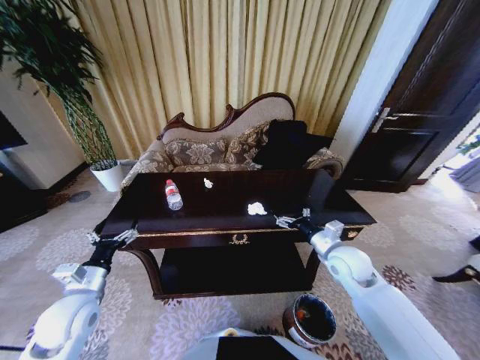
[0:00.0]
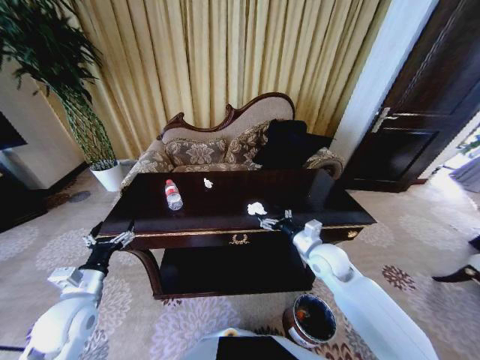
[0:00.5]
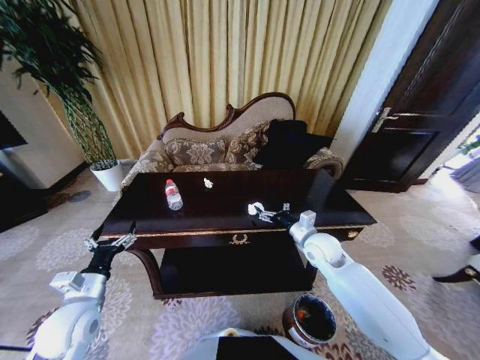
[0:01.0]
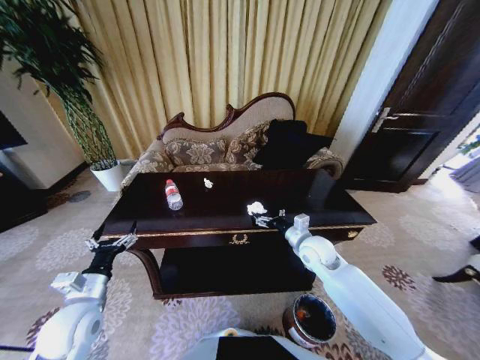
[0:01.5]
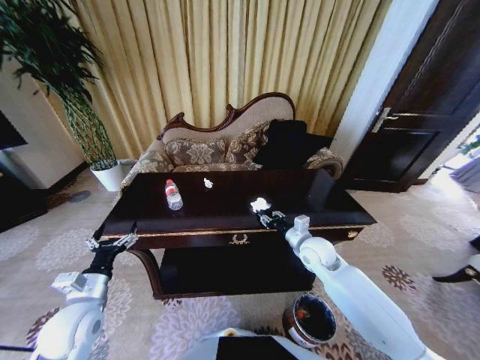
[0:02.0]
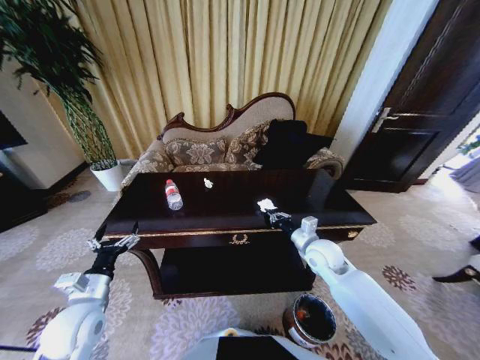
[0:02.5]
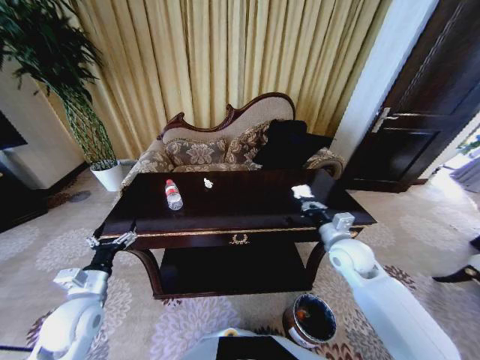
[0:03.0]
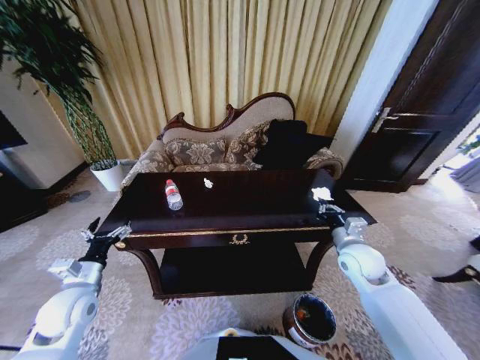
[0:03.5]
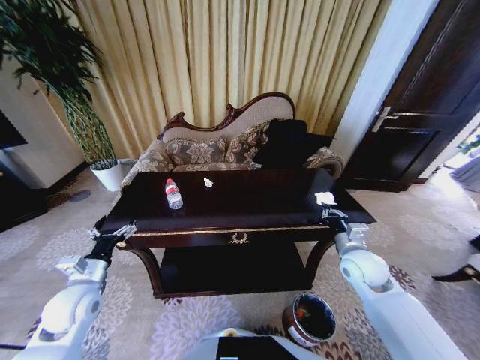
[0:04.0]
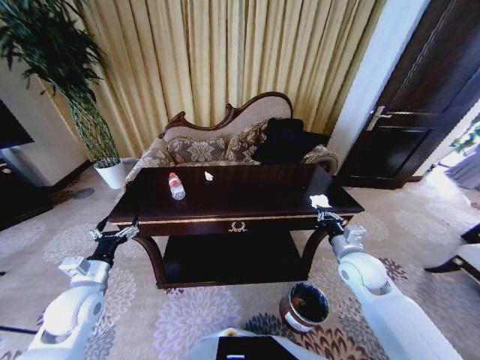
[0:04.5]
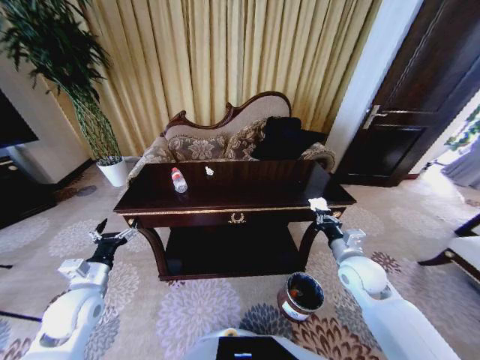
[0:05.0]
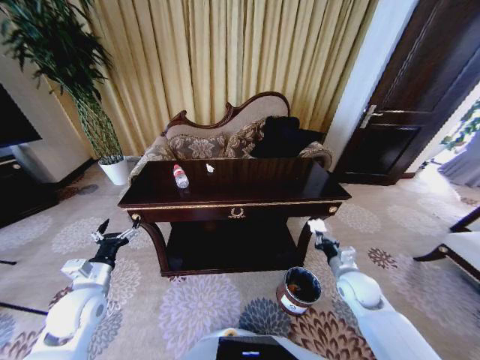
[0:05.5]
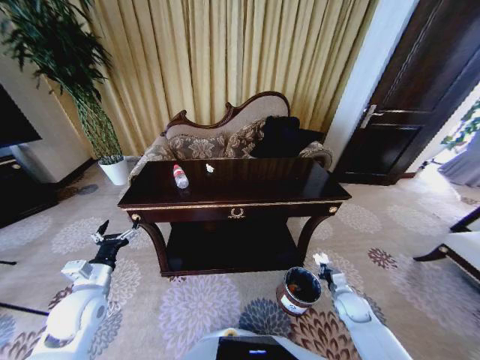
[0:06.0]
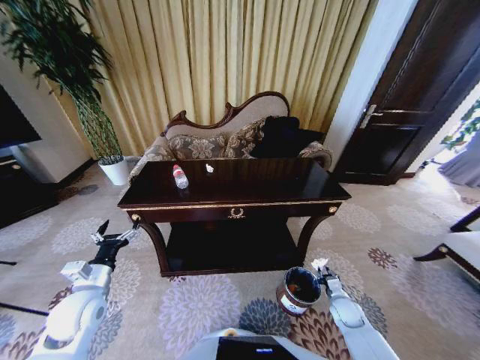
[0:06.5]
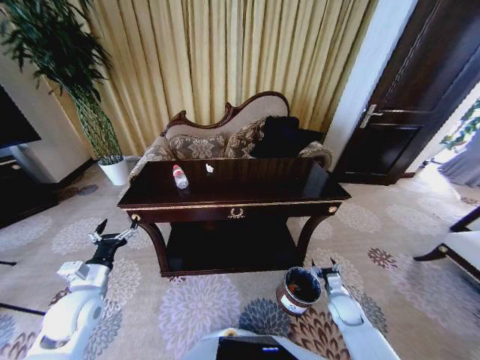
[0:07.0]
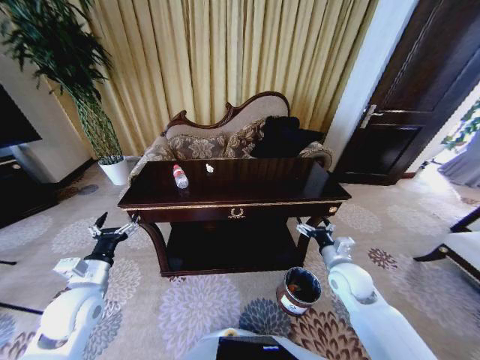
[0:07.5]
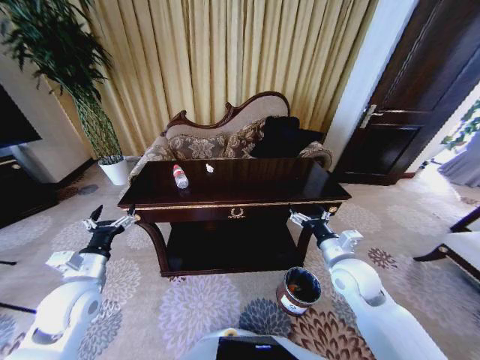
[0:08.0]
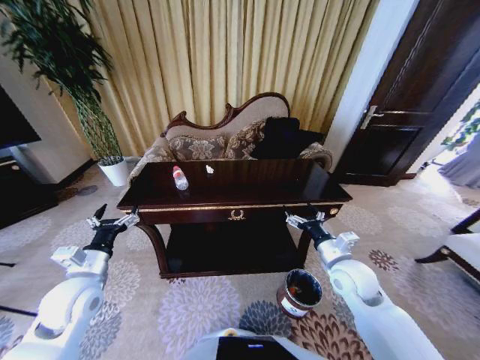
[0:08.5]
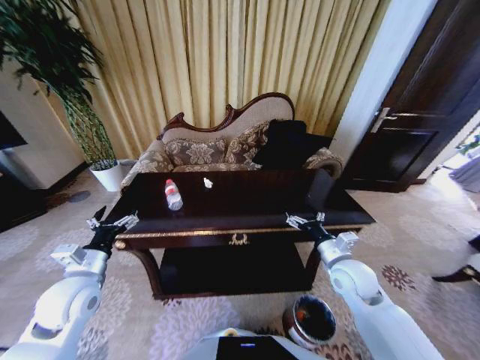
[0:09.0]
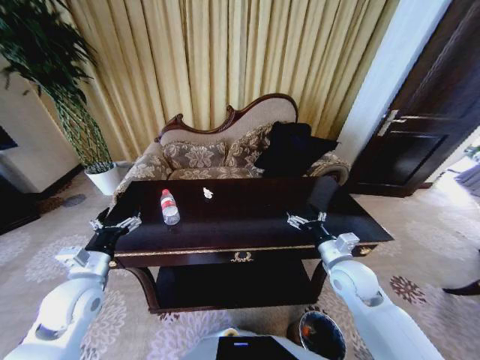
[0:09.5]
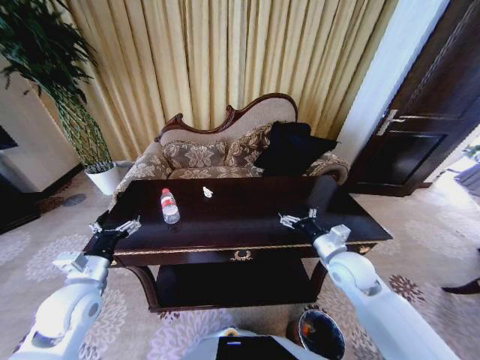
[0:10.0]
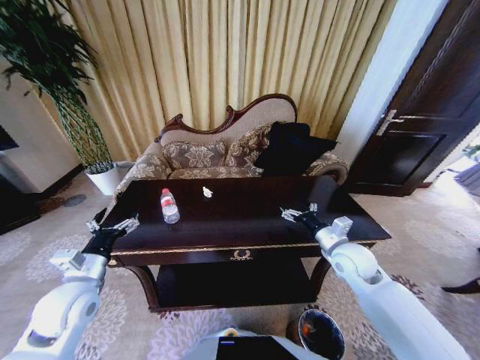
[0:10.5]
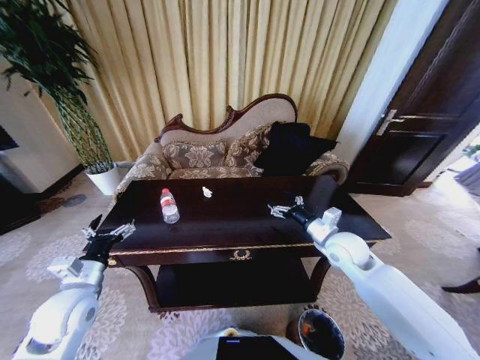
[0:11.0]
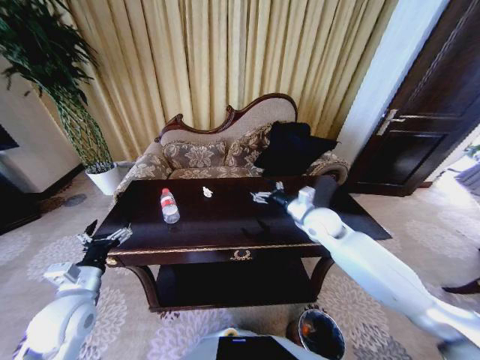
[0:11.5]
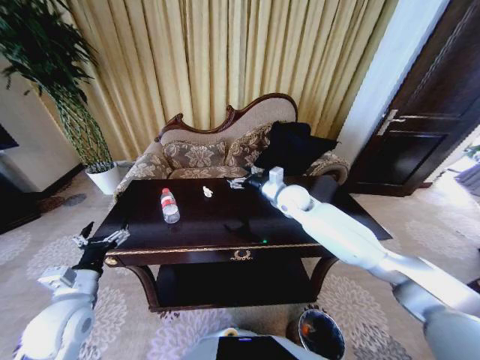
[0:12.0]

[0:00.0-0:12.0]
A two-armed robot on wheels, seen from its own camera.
Task of the whole recording: Move to the front of the table and place the trash on the table into the trash bin.
0:00.0 to 0:02.0: The right gripper moves to the left, some 5 cm, and closes its fingers.
0:02.0 to 0:04.0: The right gripper shifts about 10 cm to the right and backward, and closes.
0:04.0 to 0:06.0: The right gripper heads downward, covering some 20 cm.
0:06.0 to 0:08.0: The right gripper travels upward and to the left by about 25 cm, and opens.
0:10.0 to 0:12.0: The right gripper is displaced forward and to the left by approximately 25 cm.

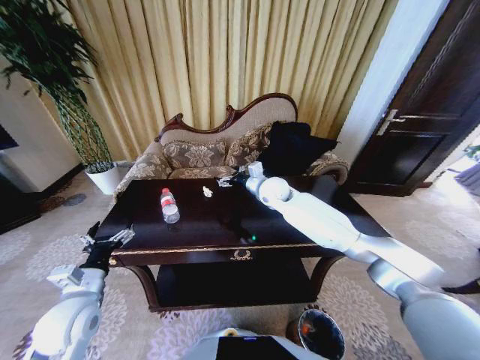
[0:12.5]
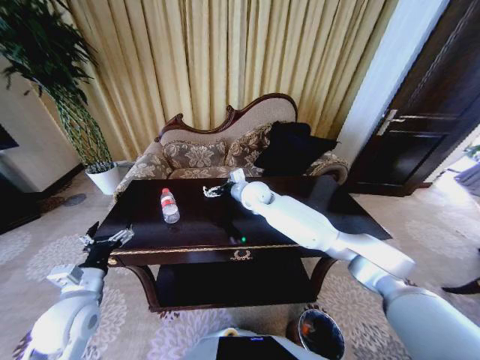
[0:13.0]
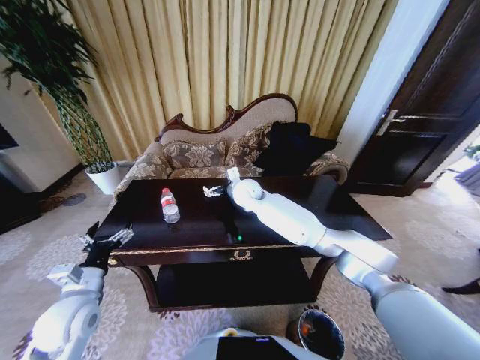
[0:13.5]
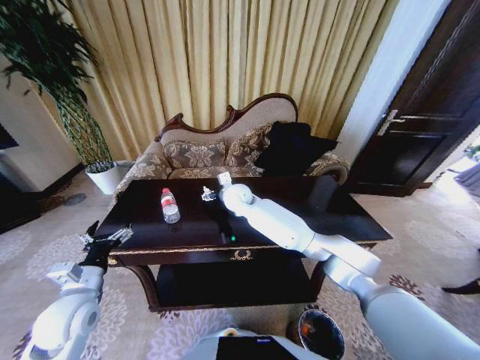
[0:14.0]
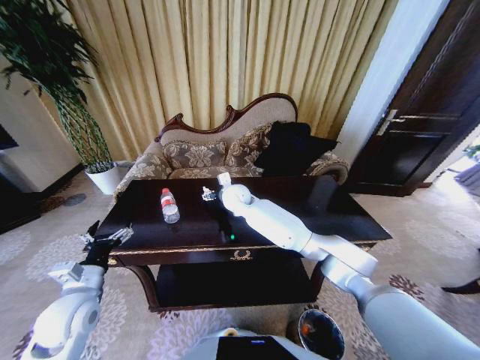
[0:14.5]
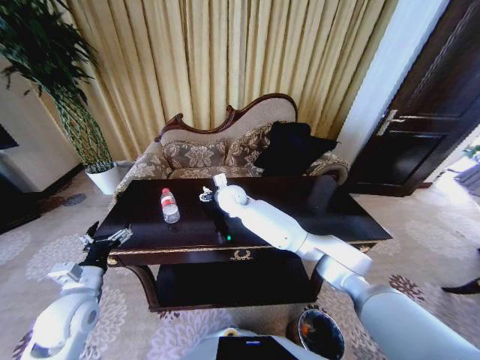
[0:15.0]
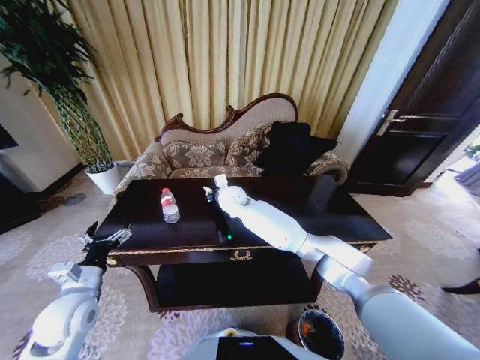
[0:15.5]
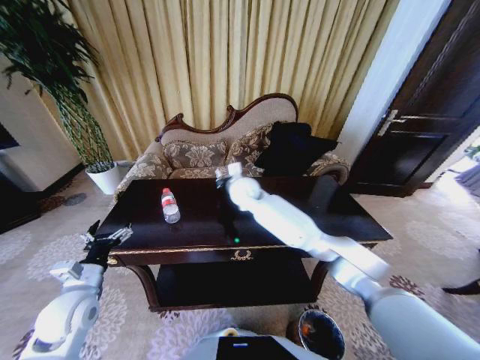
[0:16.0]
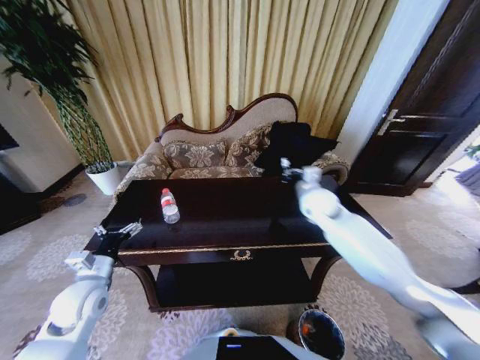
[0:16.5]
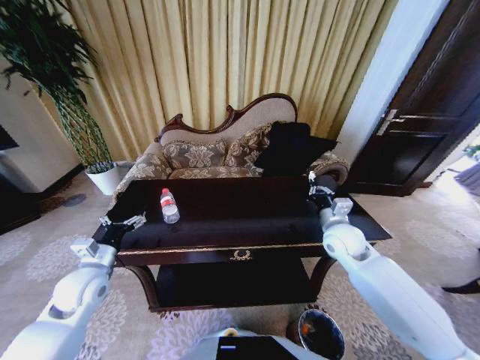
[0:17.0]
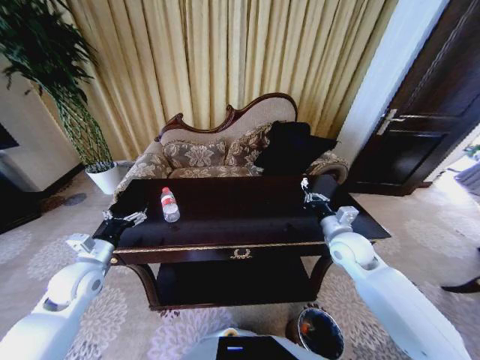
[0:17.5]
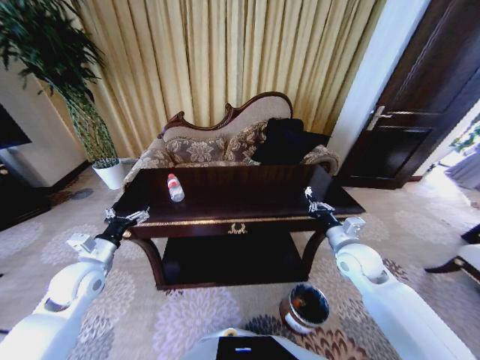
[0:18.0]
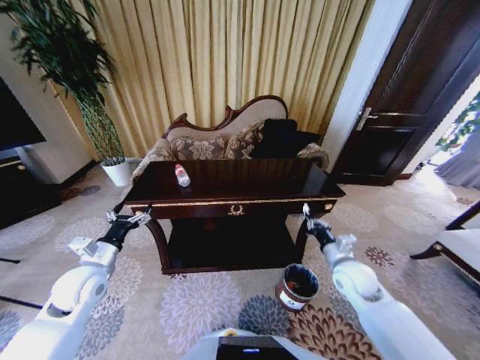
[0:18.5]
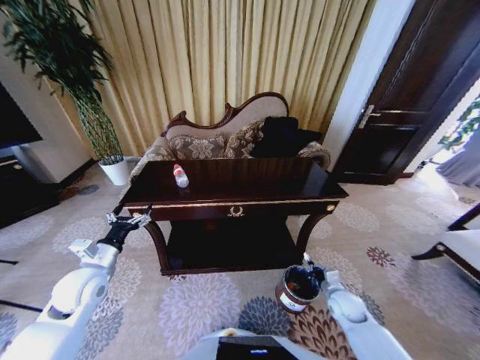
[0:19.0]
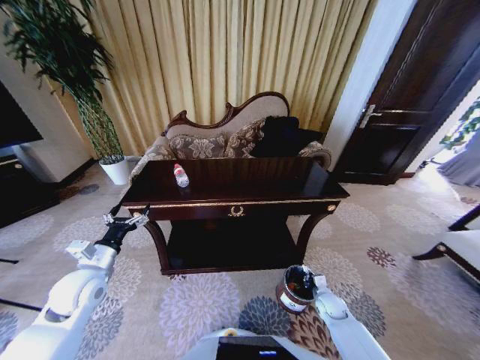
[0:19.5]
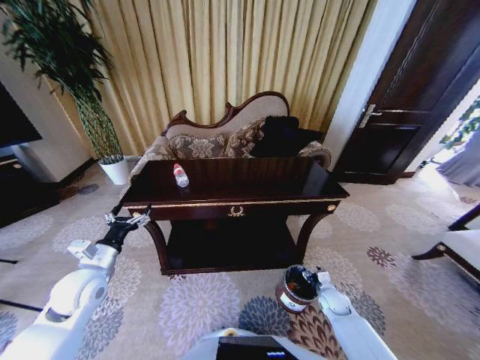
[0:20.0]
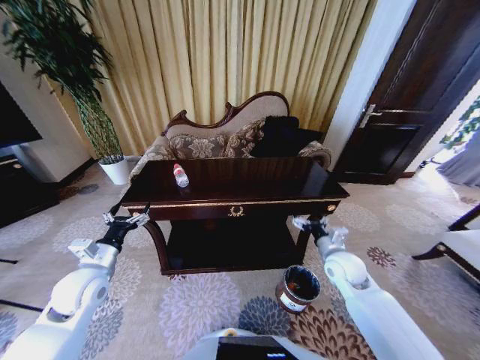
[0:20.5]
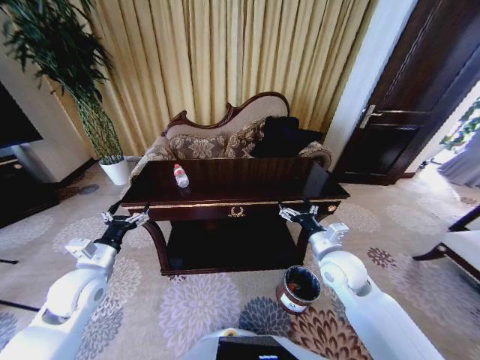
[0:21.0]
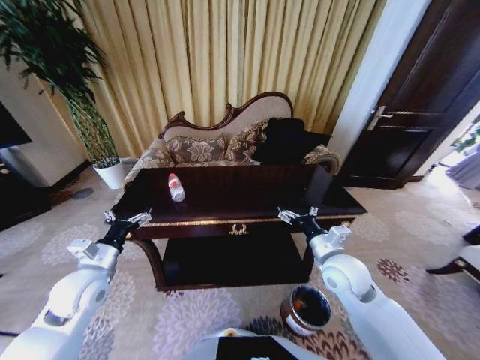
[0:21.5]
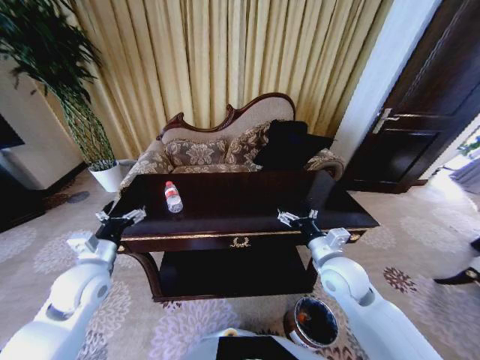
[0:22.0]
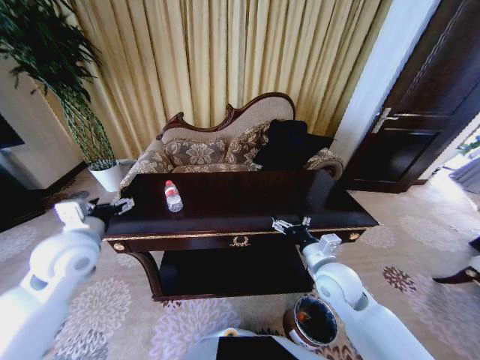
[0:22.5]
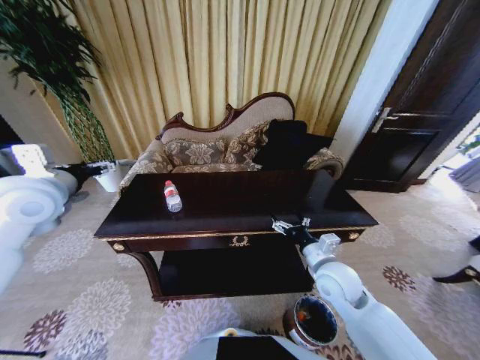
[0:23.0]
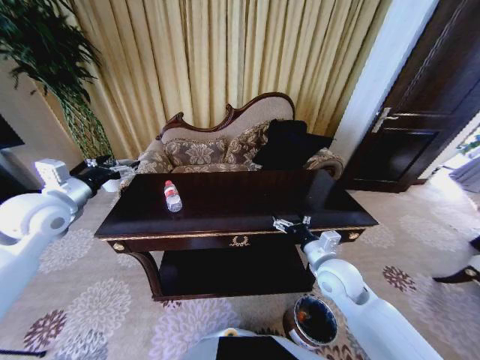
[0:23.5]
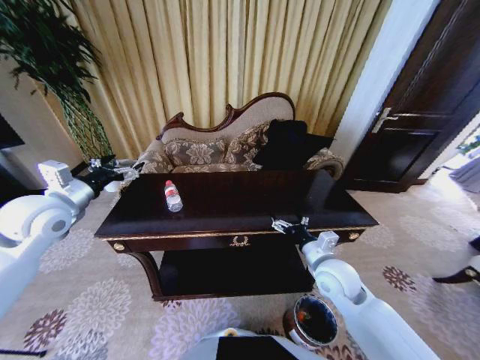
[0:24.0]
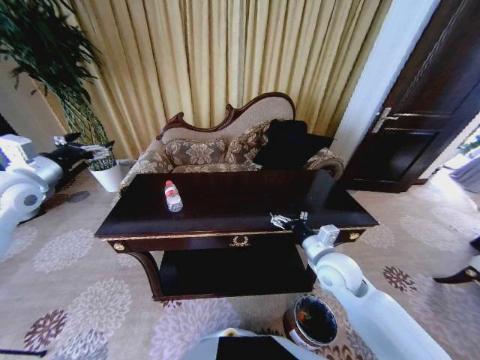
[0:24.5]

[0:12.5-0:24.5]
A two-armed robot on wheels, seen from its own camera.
Task of the whole recording: Move to the front of the table and place the trash on the table into the trash bin.
0:12.5 to 0:14.5: The right gripper travels to the left by some 10 cm.
0:14.5 to 0:16.5: The right gripper goes approximately 25 cm to the right, and closes its fingers.
0:16.5 to 0:18.5: The right gripper shifts roughly 20 cm backward and downward.
0:18.5 to 0:20.5: The right gripper reaches approximately 25 cm downward, then returns, and opens.
0:20.5 to 0:22.5: The left gripper shifts some 10 cm upward, while the right gripper moves to the left and backward, roughly 10 cm.
0:22.5 to 0:24.5: The left gripper heads to the left, forward and upward, covering about 20 cm.

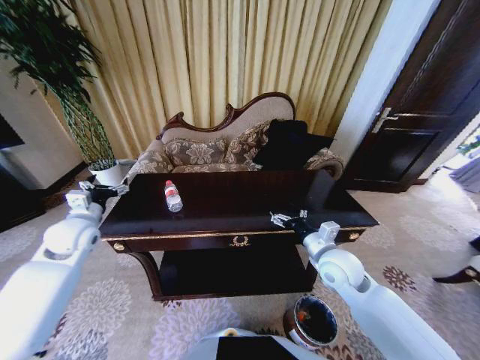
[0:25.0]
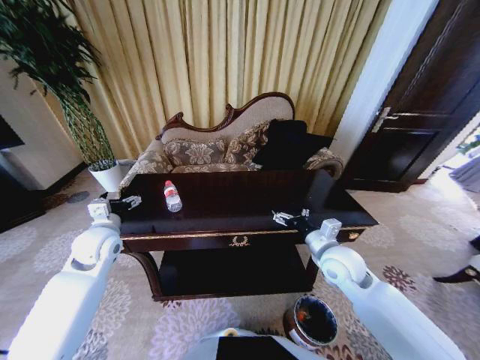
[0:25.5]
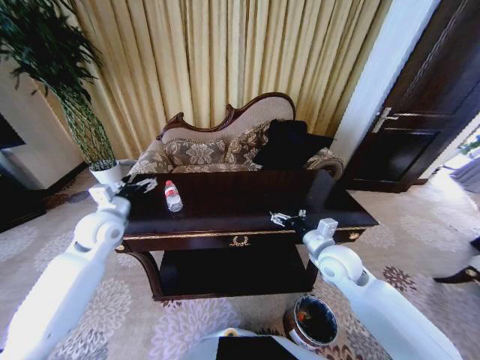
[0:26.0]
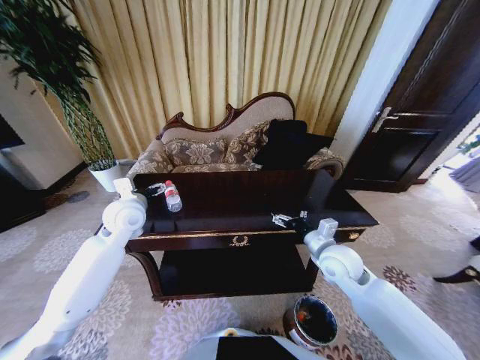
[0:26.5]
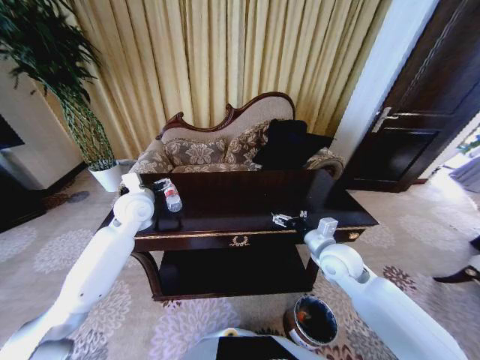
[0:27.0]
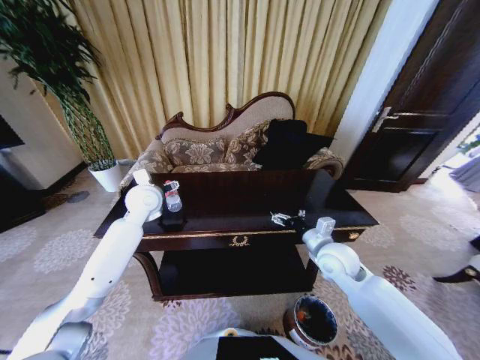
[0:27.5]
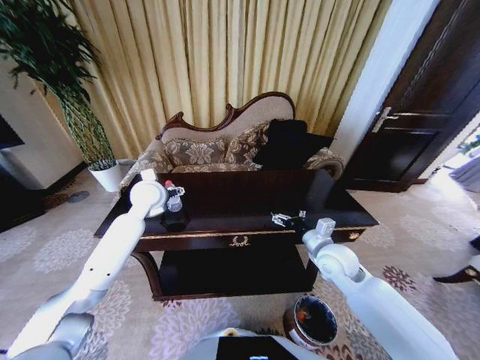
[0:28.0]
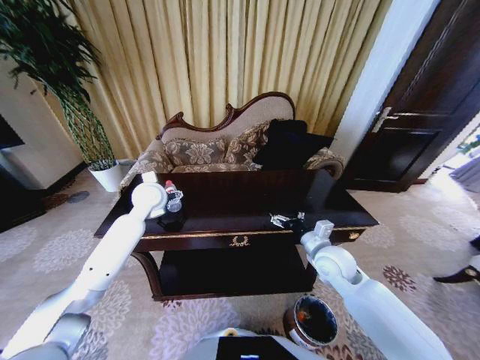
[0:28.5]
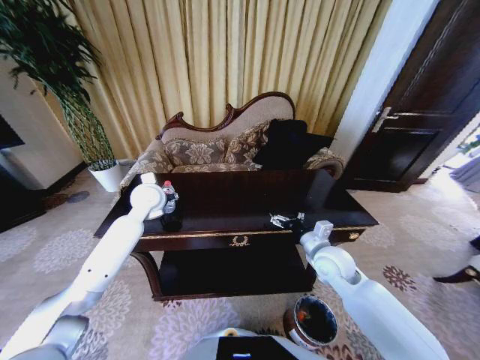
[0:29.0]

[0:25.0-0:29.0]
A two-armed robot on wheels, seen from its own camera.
Task of the whole recording: Move to the front of the table and place the trash on the table into the trash bin.
0:25.0 to 0:27.0: The left gripper is displaced to the right and forward by about 15 cm.
0:27.0 to 0:29.0: The left gripper closes up.
